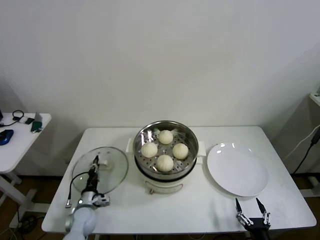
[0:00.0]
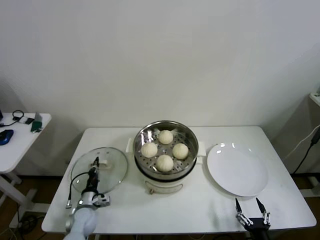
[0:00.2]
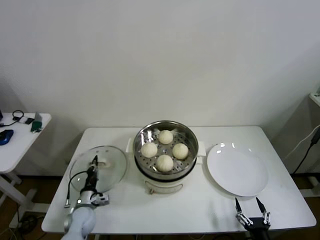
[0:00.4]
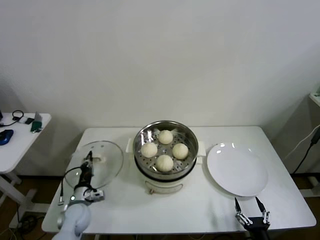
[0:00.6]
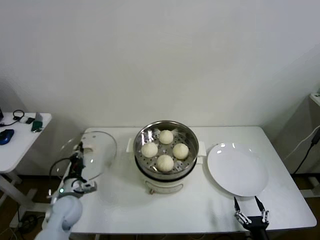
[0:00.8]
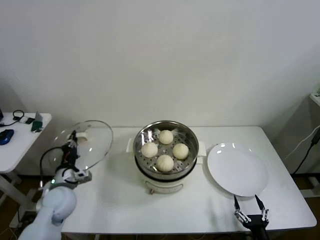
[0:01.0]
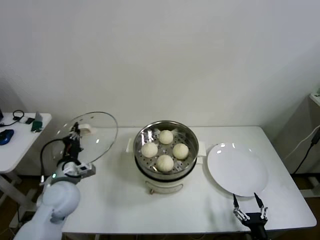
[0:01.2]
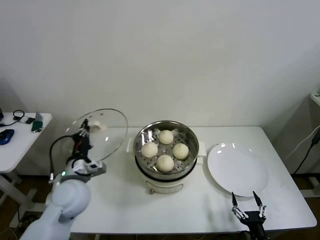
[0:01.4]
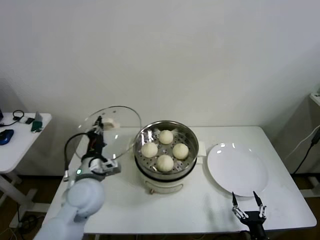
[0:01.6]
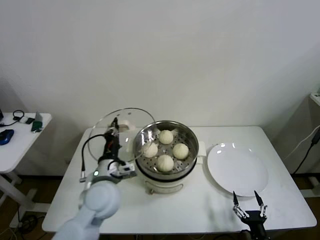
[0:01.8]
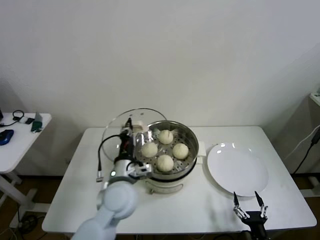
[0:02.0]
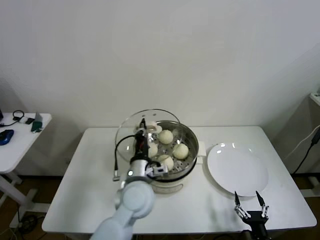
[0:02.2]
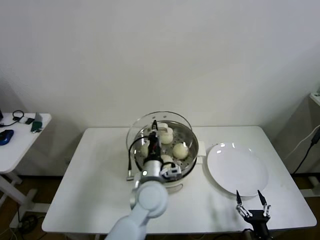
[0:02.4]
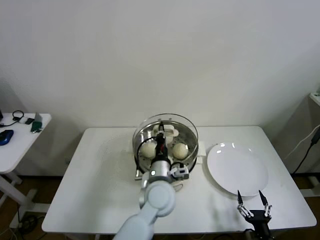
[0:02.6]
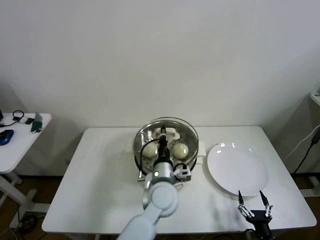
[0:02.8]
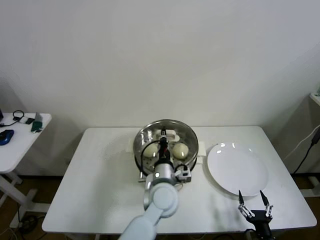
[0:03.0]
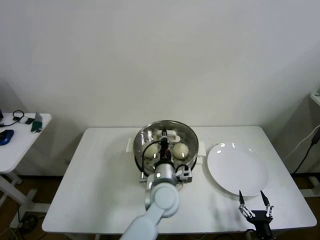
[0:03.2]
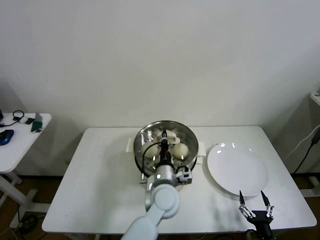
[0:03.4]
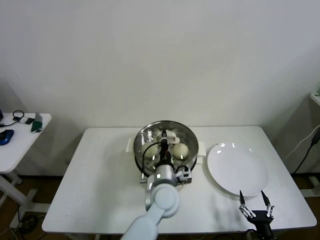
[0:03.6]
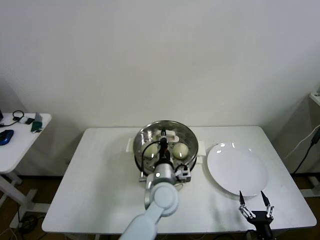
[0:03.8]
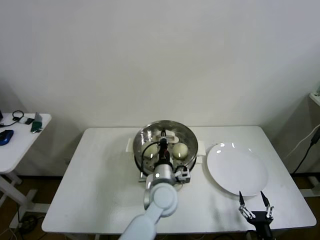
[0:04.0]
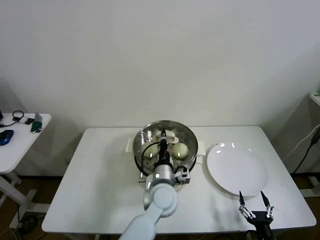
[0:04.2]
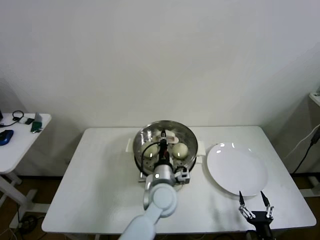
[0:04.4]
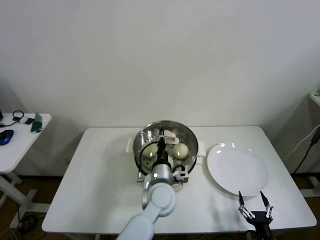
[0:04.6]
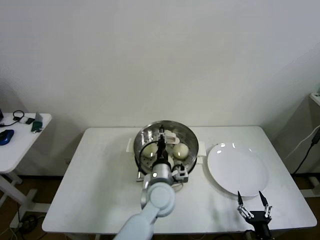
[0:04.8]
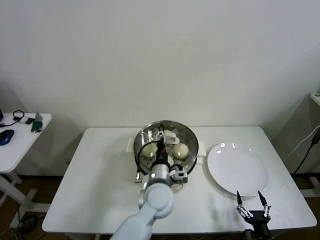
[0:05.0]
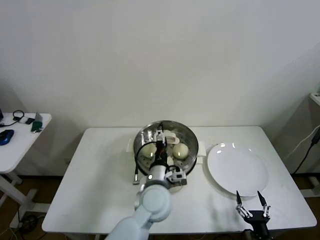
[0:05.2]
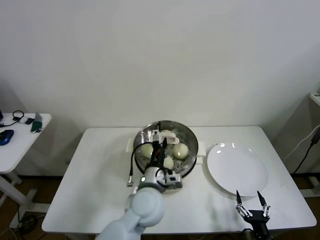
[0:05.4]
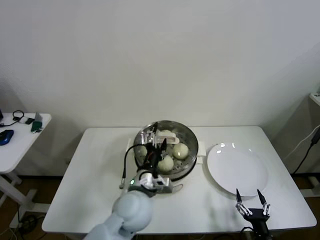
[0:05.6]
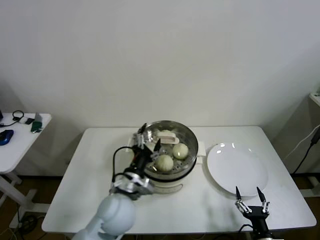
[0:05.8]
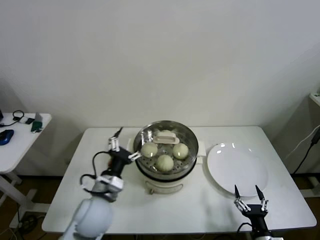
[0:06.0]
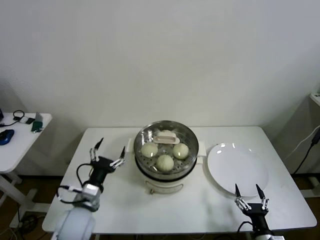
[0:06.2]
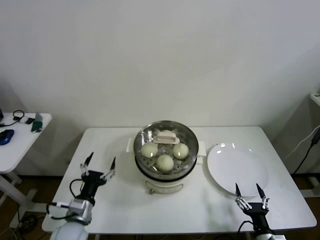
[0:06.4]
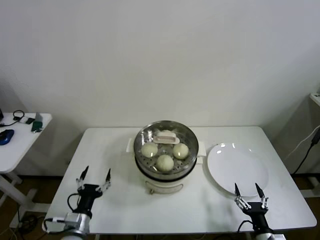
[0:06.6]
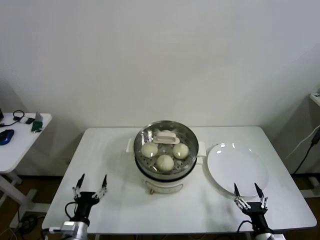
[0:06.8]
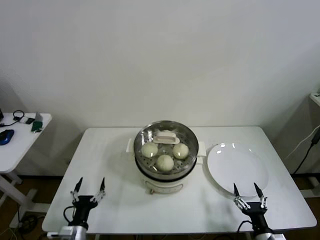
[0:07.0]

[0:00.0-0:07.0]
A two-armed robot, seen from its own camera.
Step, 0:00.2 to 0:04.6: Place the pot lid on the steamer with left gripper.
0:00.0 to 0:01.4: The left gripper travels upward by some 25 cm.
0:01.4 to 0:02.8: The left gripper is displaced to the right by about 25 cm.
0:02.8 to 0:04.2: The grippers stay close to where they were, moving slightly.
0:04.2 to 0:05.6: The left gripper shifts some 5 cm to the left, and opens up.
0:05.6 to 0:07.0: The left gripper travels to the left, downward and backward by roughly 30 cm.
